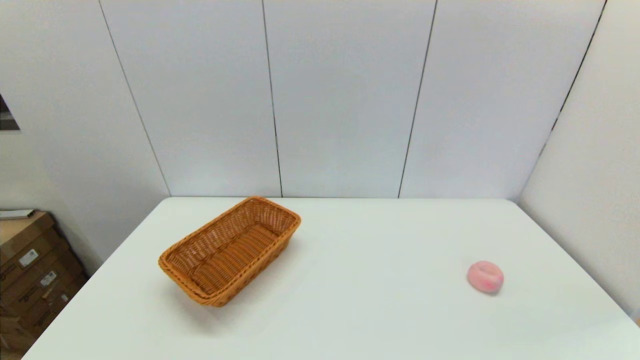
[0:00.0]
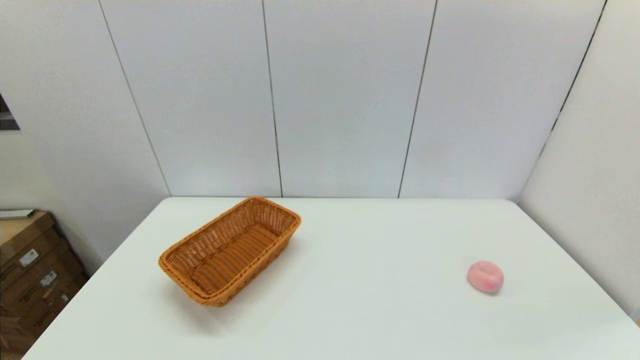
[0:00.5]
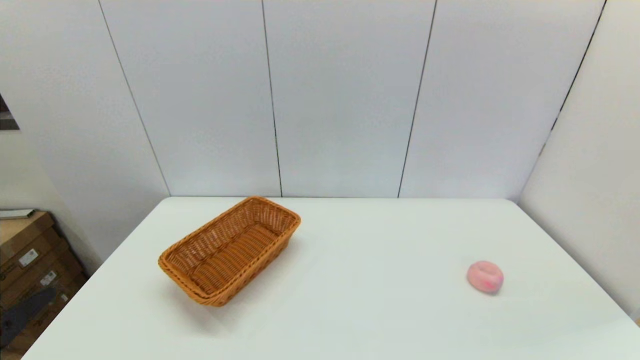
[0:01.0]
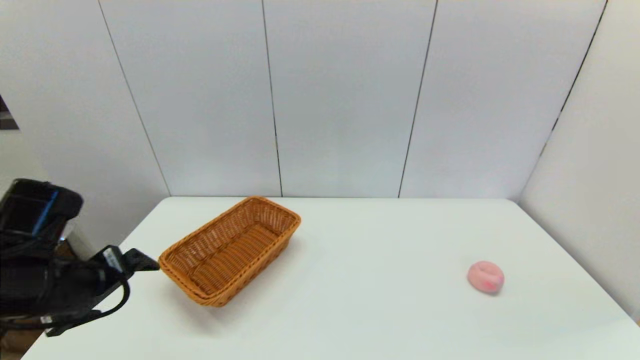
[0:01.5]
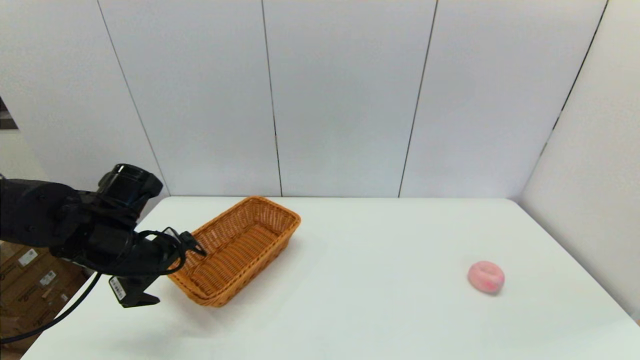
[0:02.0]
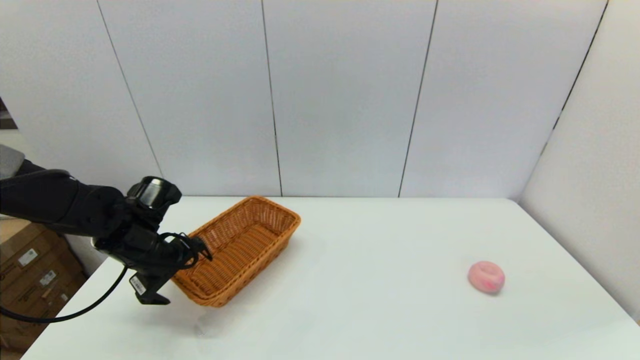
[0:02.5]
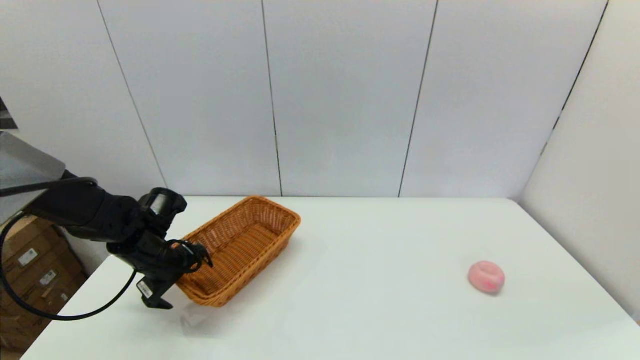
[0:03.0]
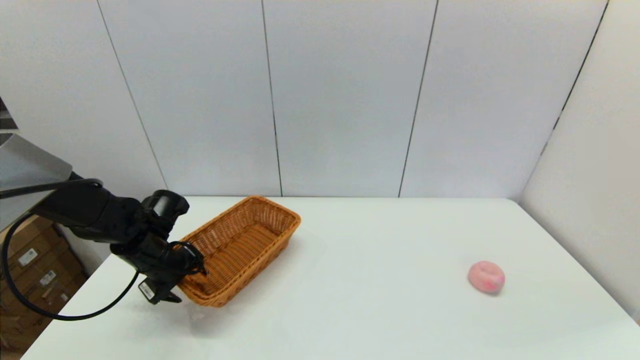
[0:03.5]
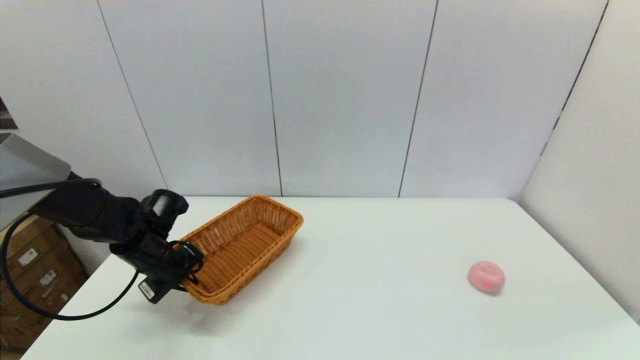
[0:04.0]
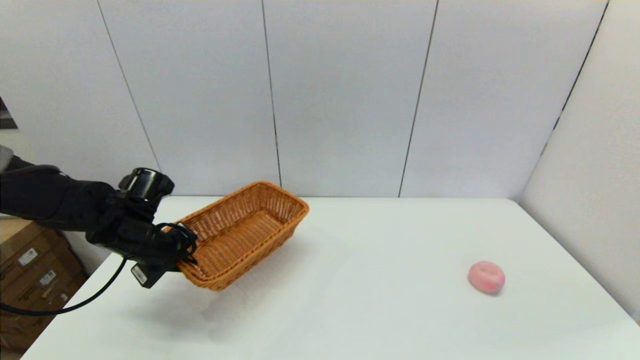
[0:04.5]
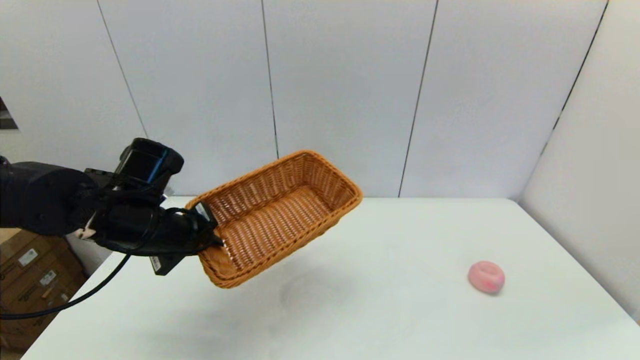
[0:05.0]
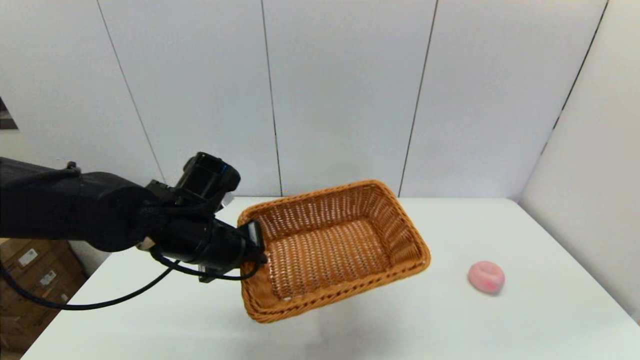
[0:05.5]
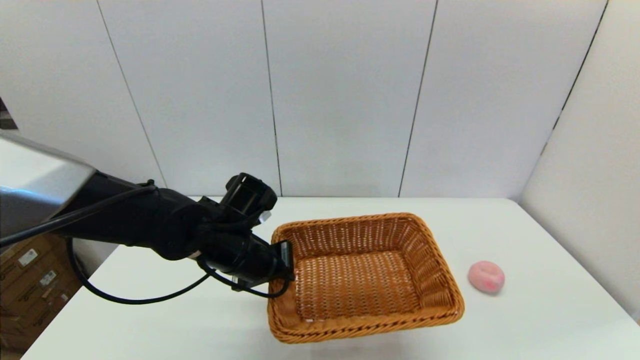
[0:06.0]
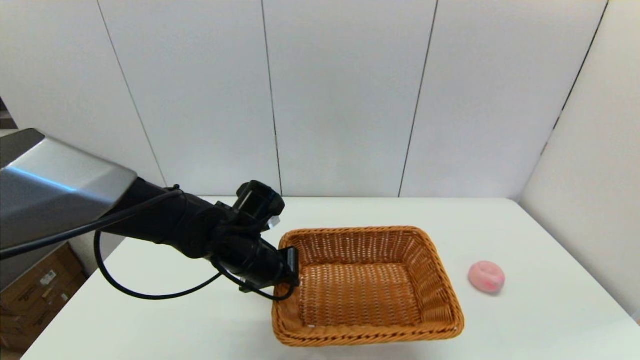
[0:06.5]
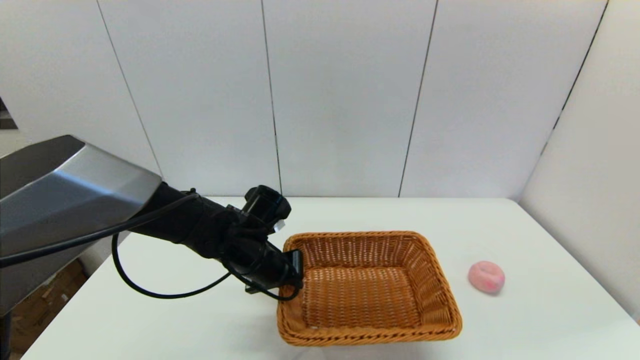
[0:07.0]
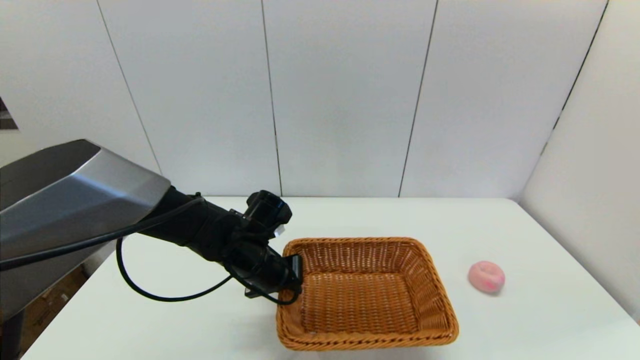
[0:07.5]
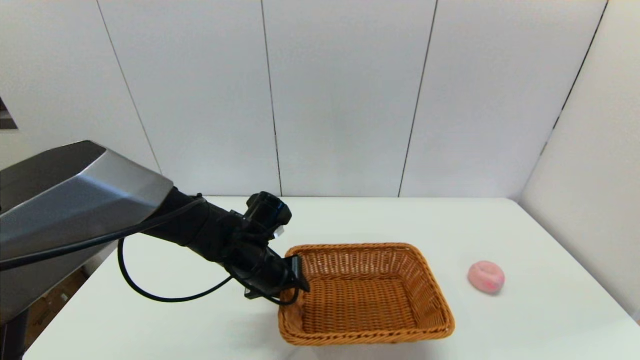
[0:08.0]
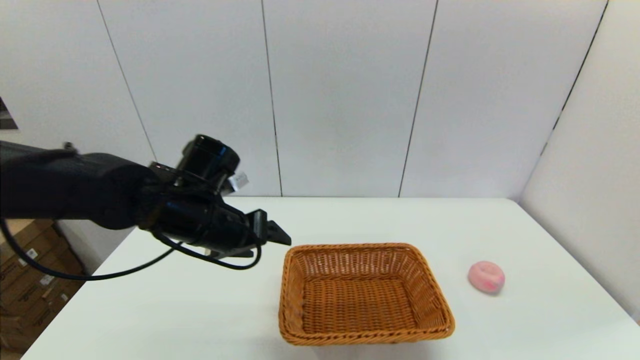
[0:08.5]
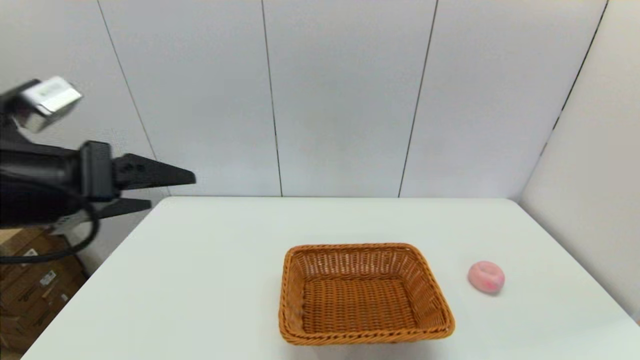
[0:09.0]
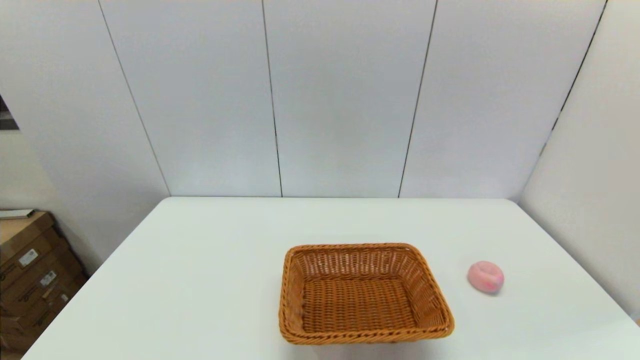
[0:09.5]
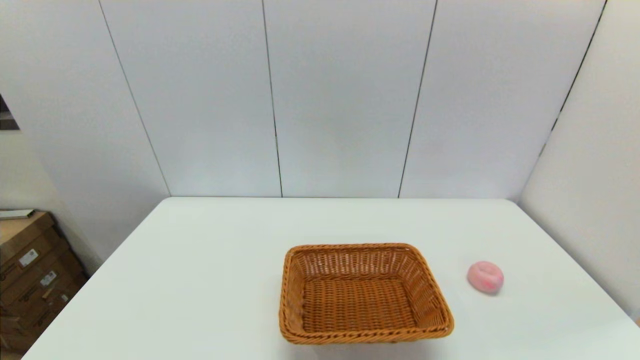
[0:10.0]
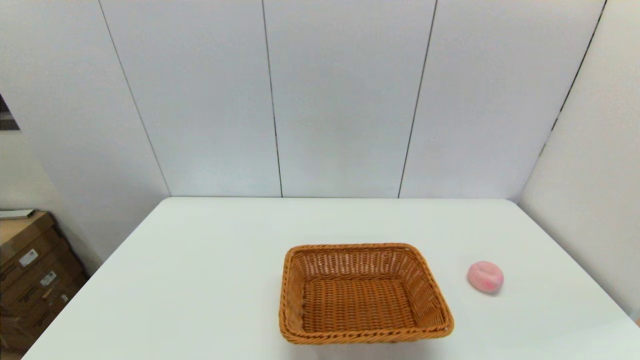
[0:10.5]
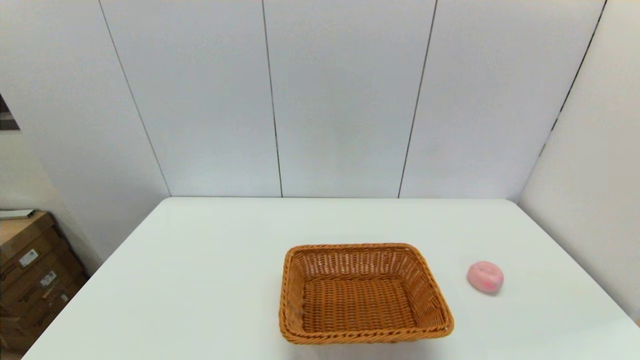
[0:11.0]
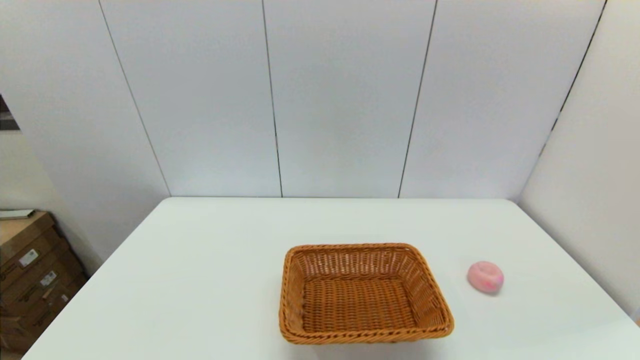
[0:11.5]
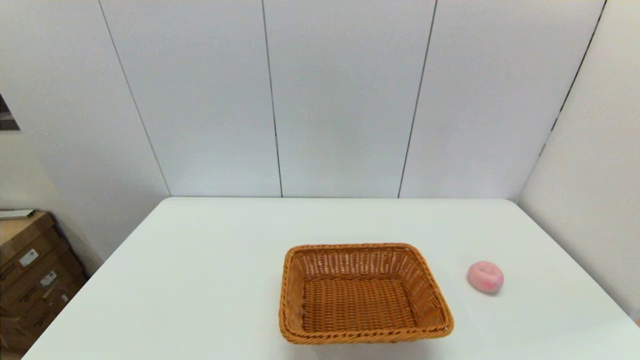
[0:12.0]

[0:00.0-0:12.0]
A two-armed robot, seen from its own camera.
Step, 0:00.0 to 0:03.5: Grasp the light basket with the left gripper.
Step, 0:04.5 to 0:07.5: Place the light basket on the middle of the table with the left gripper.
0:00.0 to 0:02.0: The left gripper heads forward, covering some 30 cm.
0:02.0 to 0:04.0: The left gripper goes some 10 cm downward and forward, and closes its fingers.
0:04.0 to 0:06.0: The left gripper travels to the right by approximately 15 cm.
0:06.0 to 0:08.0: The left gripper shifts by roughly 5 cm, and opens.
0:08.0 to 0:10.0: The left gripper travels backward, to the left and upward by roughly 40 cm, and opens its fingers.

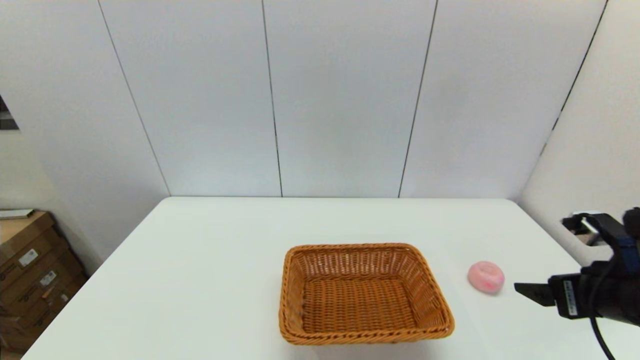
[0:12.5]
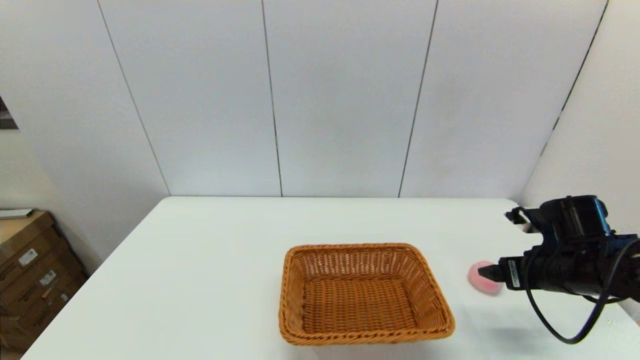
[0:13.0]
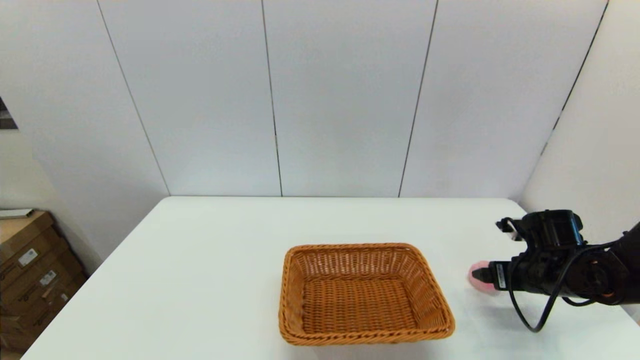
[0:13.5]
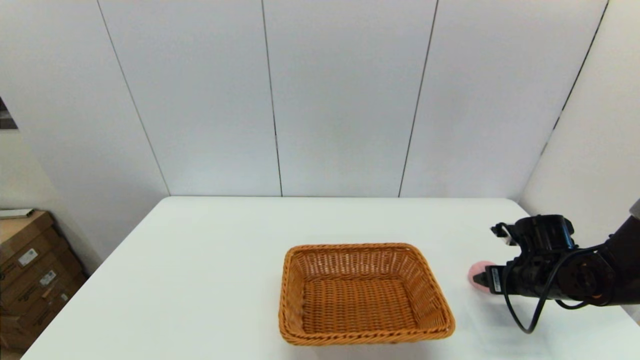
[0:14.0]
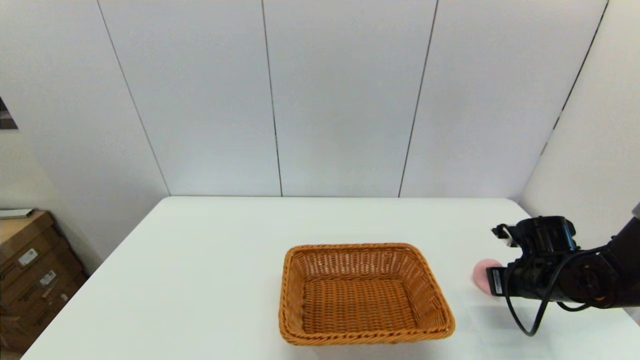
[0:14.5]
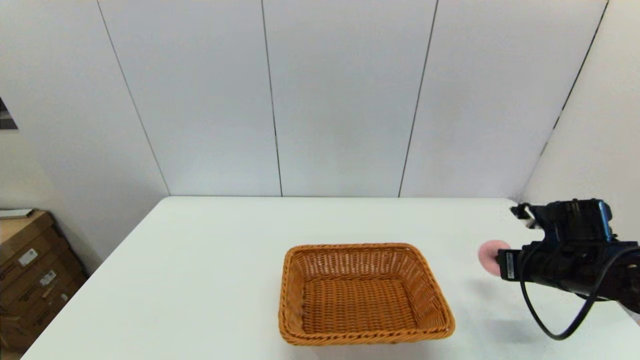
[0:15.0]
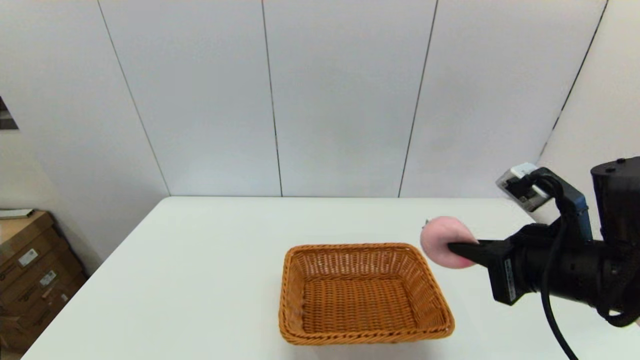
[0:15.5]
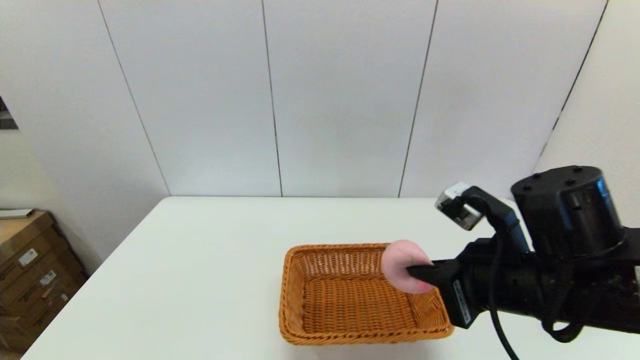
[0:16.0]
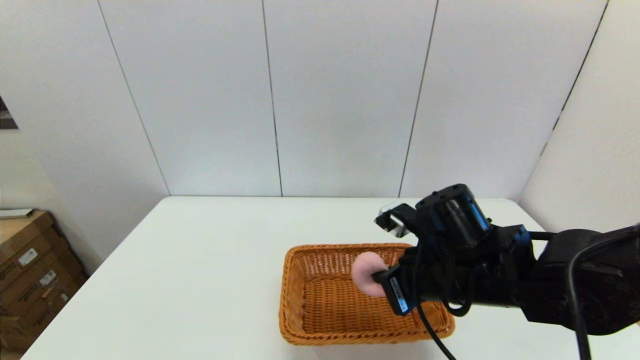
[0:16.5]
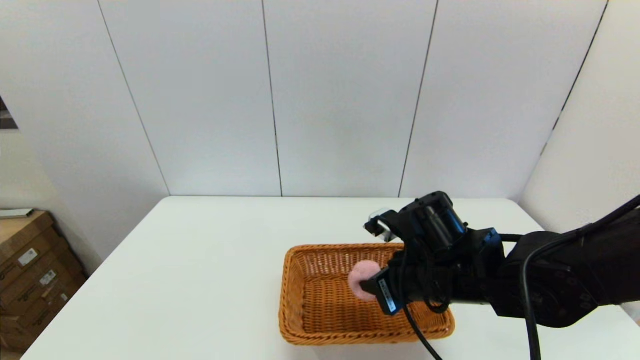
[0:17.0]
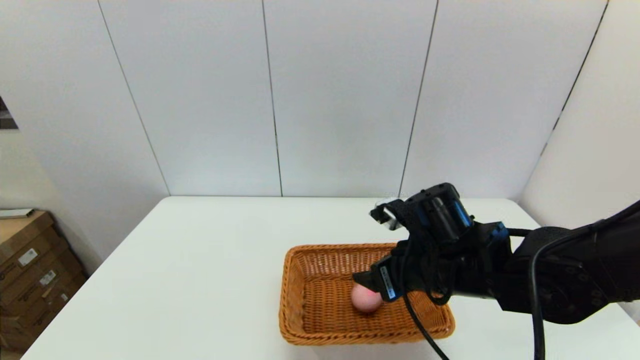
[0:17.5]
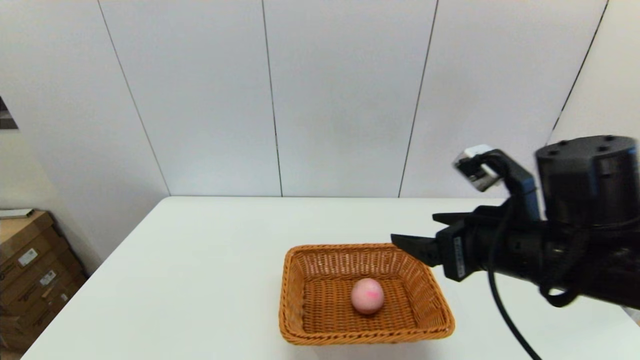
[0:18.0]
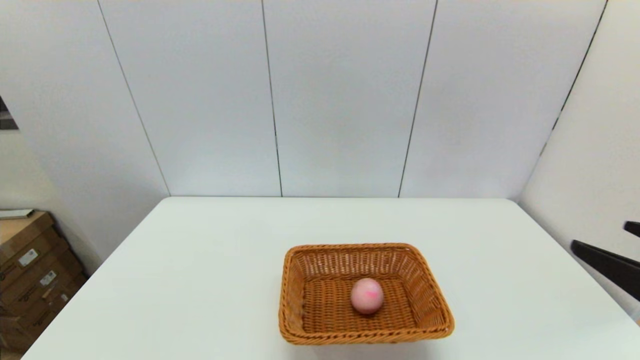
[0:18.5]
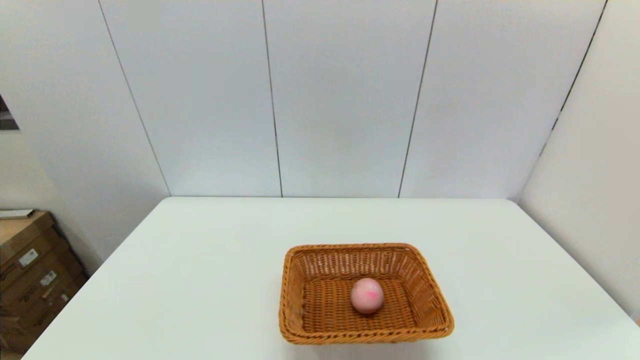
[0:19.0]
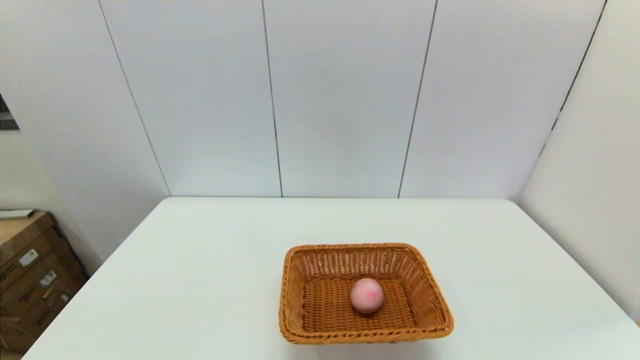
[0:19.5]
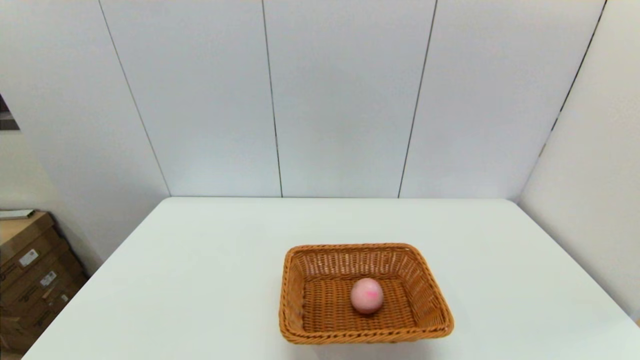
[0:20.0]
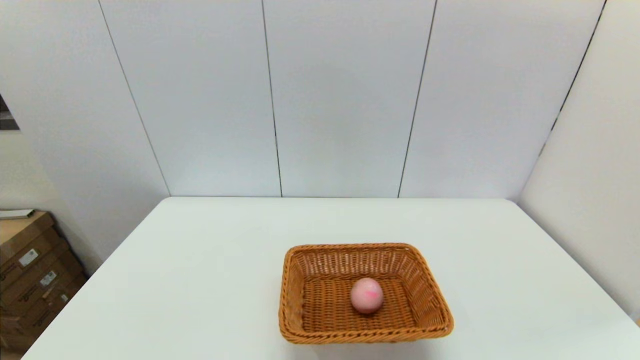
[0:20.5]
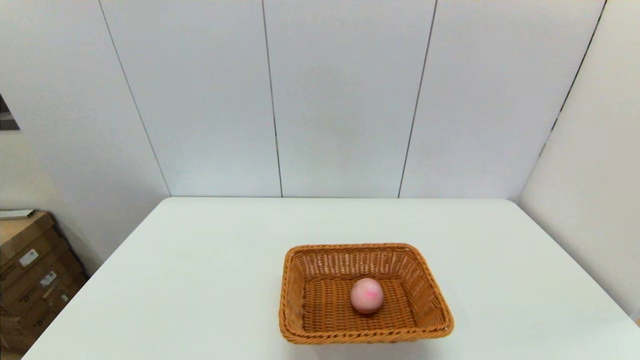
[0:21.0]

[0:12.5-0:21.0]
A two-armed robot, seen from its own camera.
Step, 0:12.5 to 0:14.5: Grasp the peach with the right gripper.
Step, 0:15.0 to 0:17.0: Place the peach into the light basket with the right gripper.
0:12.5 to 0:14.5: The right gripper goes approximately 15 cm downward and forward, and closes its fingers.
0:14.5 to 0:16.5: The right gripper moves to the left and upward, approximately 25 cm.
0:16.5 to 0:19.0: The right gripper is displaced backward and to the right by about 30 cm, and opens up.
